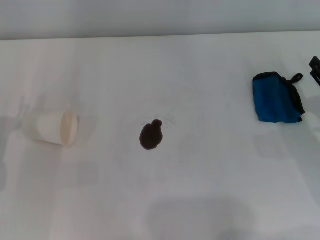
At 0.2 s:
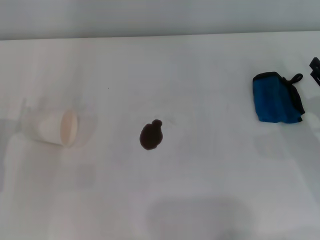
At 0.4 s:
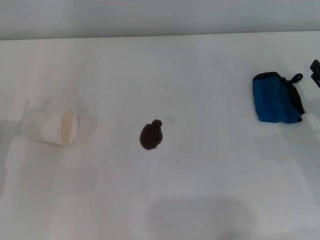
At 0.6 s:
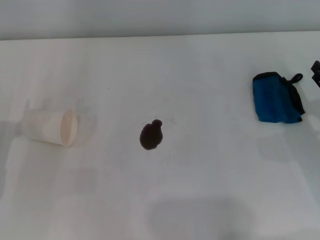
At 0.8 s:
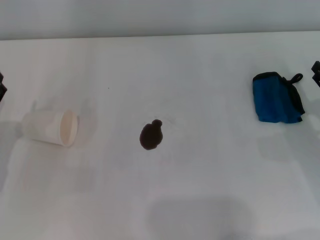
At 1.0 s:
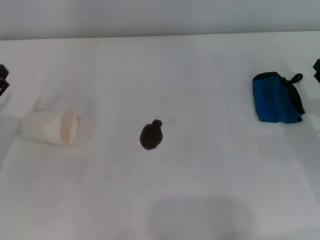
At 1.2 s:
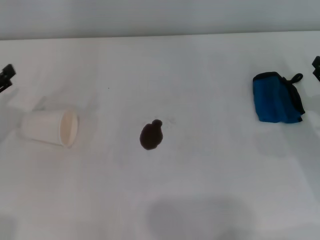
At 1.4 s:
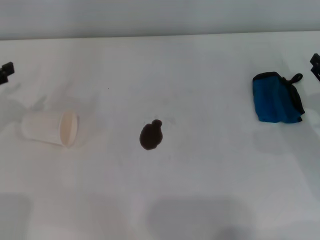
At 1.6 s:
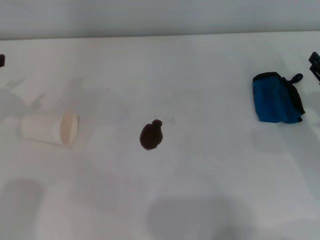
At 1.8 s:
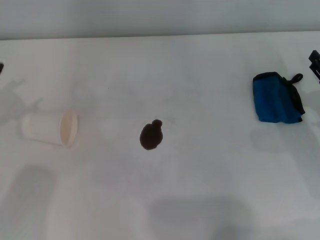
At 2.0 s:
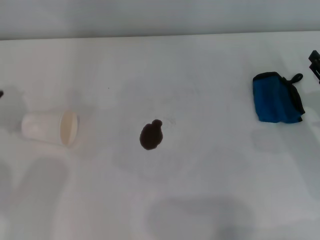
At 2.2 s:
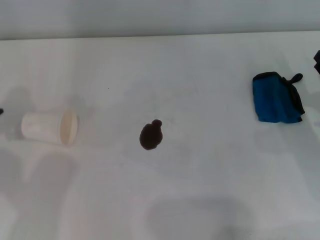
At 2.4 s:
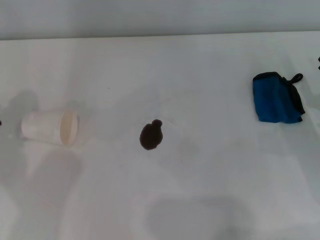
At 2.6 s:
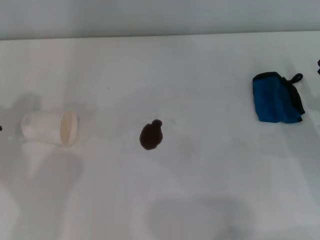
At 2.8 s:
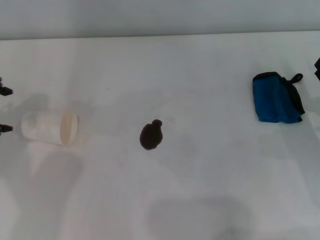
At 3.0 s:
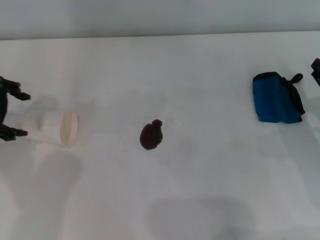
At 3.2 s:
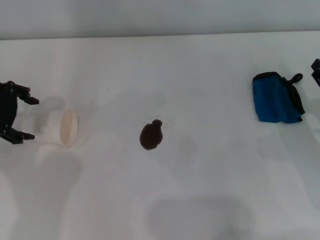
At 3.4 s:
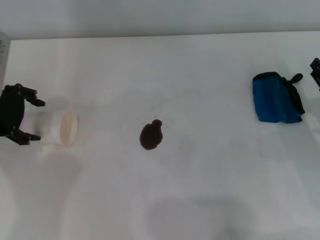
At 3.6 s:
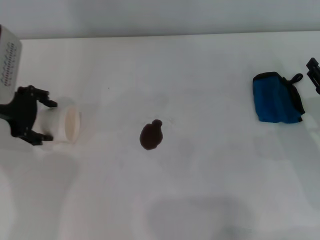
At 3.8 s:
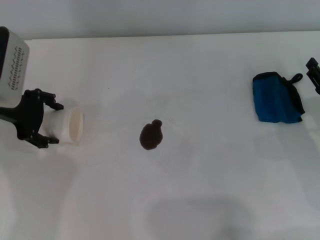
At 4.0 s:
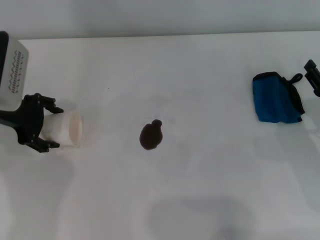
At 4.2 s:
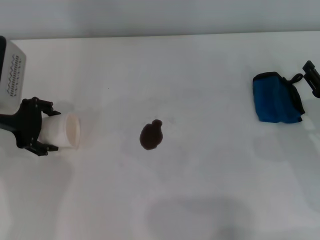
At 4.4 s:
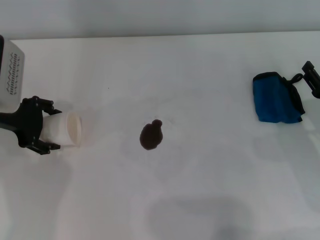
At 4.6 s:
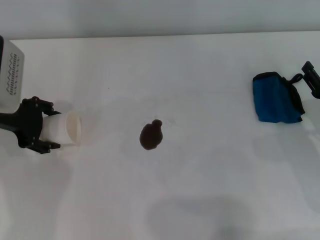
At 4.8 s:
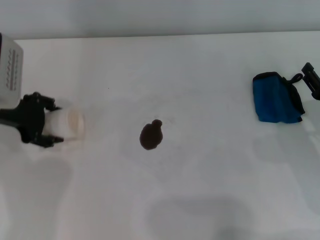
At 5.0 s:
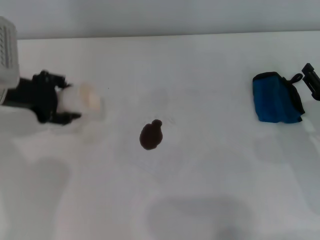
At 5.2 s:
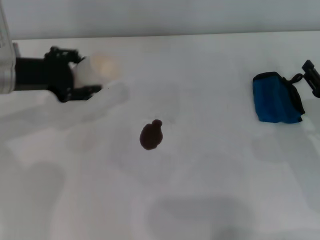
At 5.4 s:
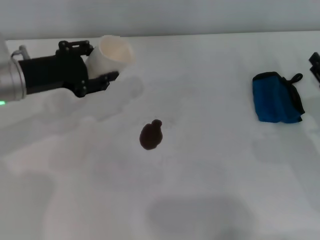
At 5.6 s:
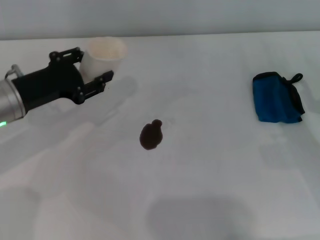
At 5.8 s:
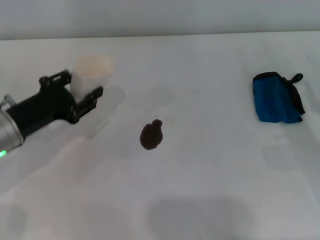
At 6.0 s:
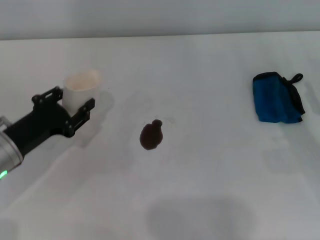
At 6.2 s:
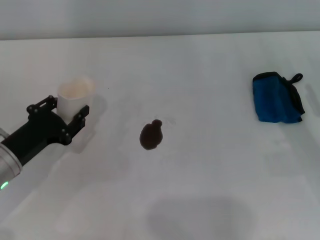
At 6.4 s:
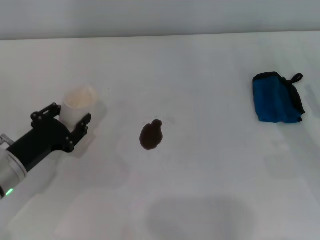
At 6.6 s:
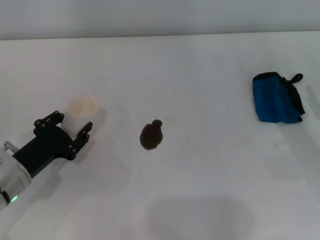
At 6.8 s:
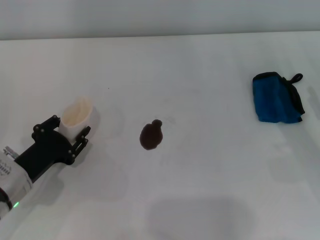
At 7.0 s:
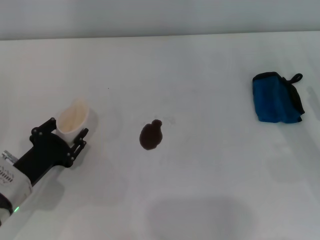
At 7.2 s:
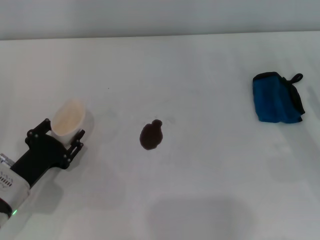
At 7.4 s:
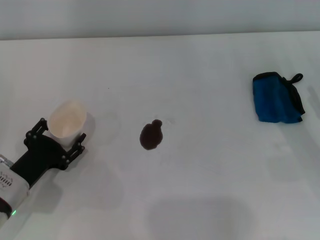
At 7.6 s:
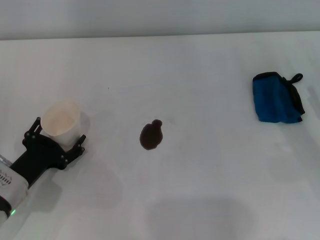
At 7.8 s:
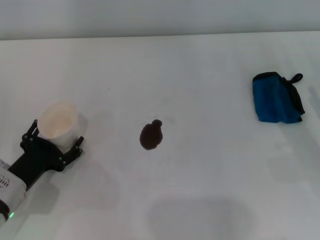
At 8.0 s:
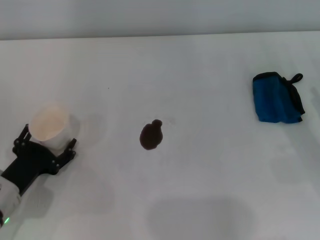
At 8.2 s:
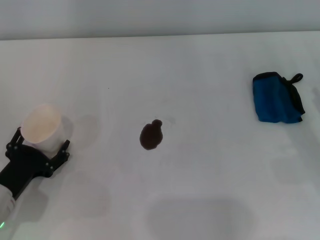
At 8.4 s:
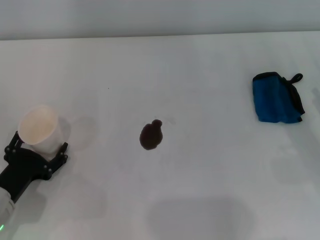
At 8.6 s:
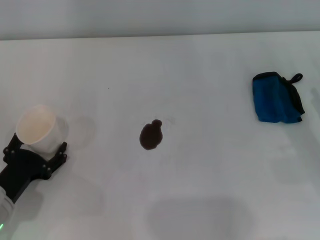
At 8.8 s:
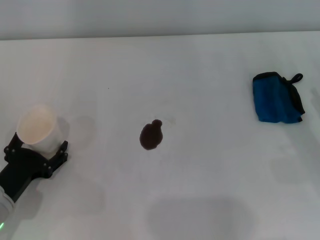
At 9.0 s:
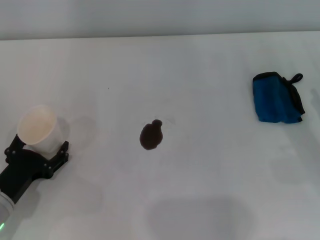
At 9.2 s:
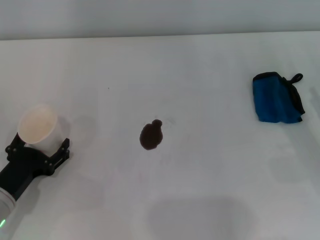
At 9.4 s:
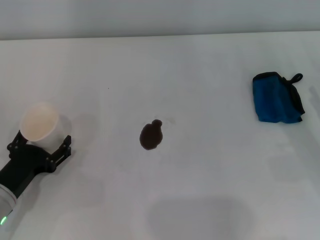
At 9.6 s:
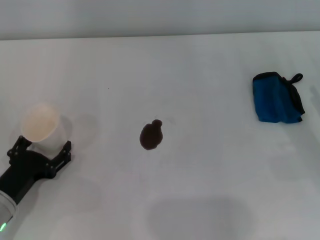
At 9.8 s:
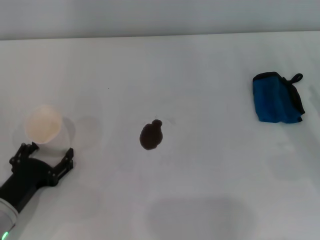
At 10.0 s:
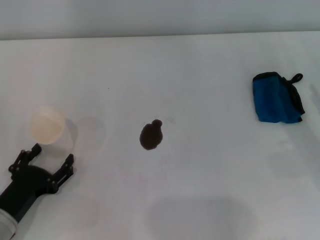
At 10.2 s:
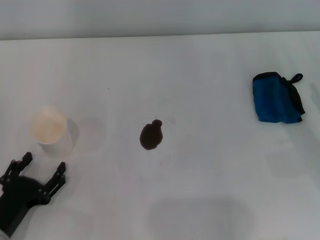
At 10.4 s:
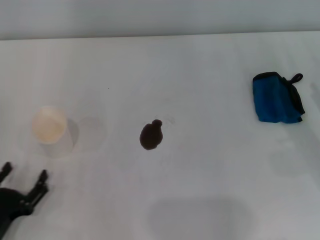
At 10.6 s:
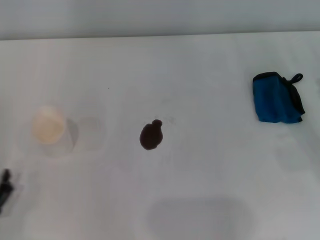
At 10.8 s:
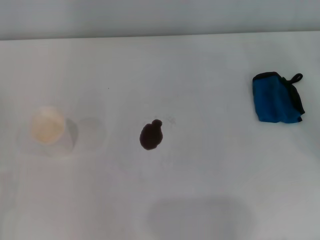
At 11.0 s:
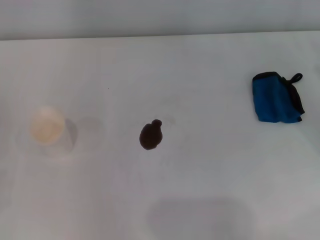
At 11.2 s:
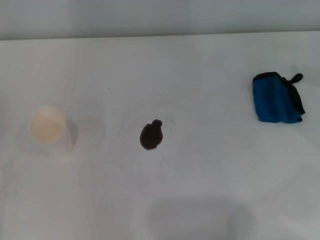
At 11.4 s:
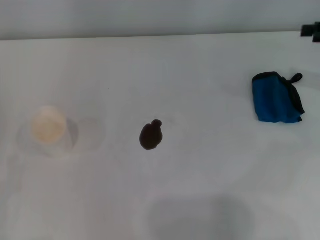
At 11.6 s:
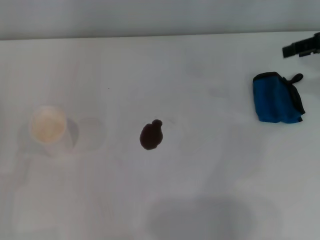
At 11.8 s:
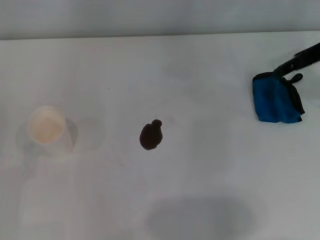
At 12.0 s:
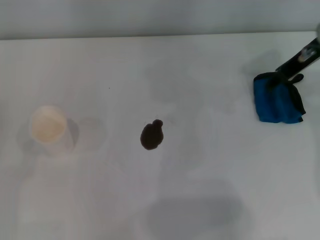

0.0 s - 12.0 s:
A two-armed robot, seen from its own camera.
Step, 0.0 s - 4.6 s: Grasp the paper cup with the left gripper.
Step, 4.8 s - 9.8 s: Stand the paper cup upright with the left gripper.
1.6 s - 3.0 s: The left gripper is displaced to the right by roughly 5 cm.
3.0 s - 4.4 s: The left gripper moves downward, roughly 5 cm.
4.4 s - 6.0 s: The left gripper goes some 10 cm backward and downward, and closes its fingers.
6.0 s - 7.6 s: The left gripper moves approximately 5 cm, and opens its fingers.
7.6 s - 9.0 s: The grippers make only small movements.
9.0 s - 10.4 s: The left gripper heads backward, covering roughly 5 cm.
10.4 s - 12.0 s: The right gripper travels forward, upward and to the left by some 25 cm. Meanwhile the left gripper shifts about 5 cm to the left.

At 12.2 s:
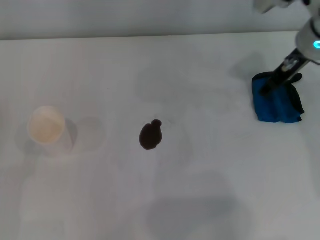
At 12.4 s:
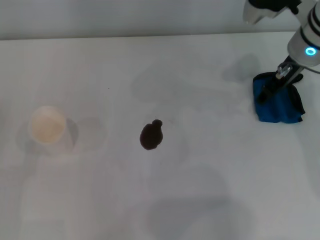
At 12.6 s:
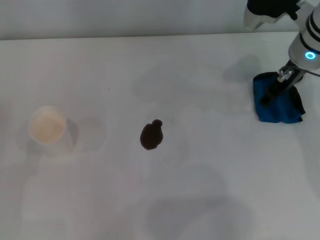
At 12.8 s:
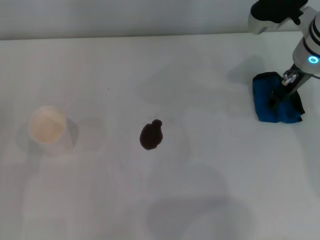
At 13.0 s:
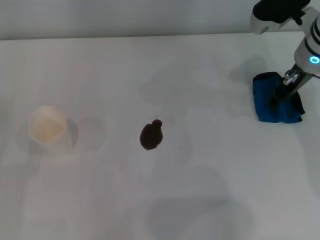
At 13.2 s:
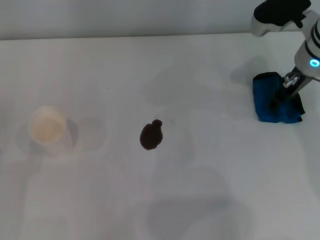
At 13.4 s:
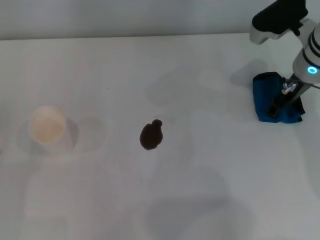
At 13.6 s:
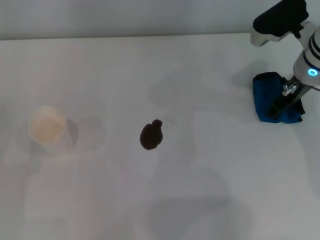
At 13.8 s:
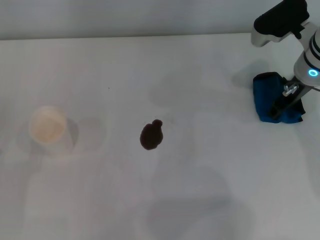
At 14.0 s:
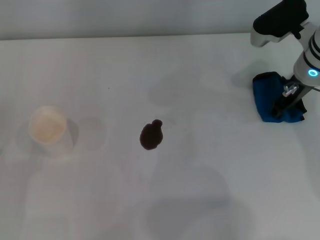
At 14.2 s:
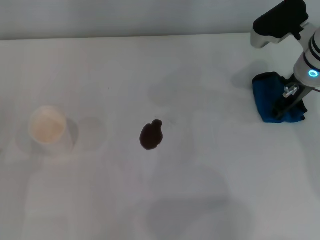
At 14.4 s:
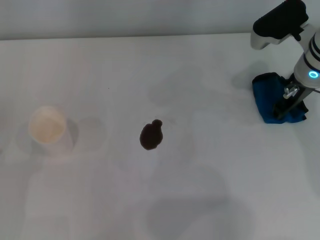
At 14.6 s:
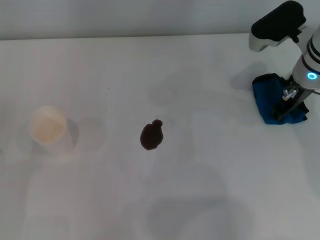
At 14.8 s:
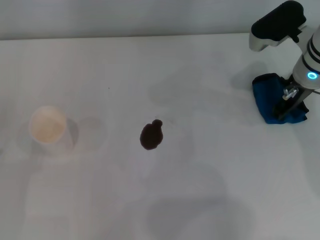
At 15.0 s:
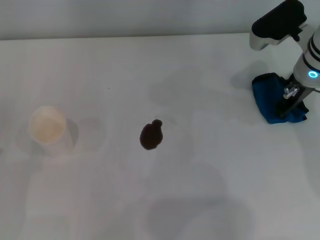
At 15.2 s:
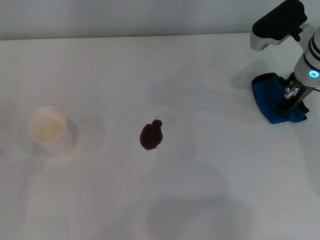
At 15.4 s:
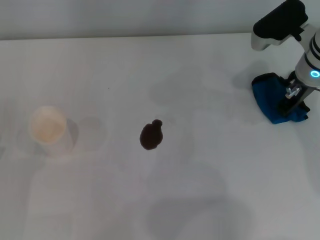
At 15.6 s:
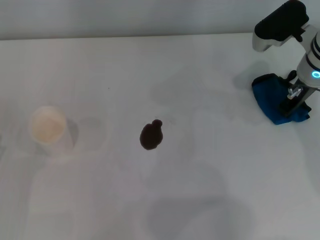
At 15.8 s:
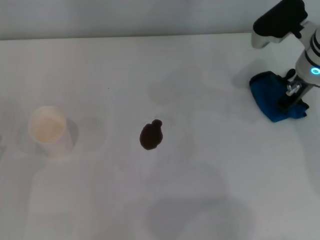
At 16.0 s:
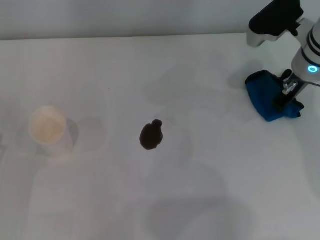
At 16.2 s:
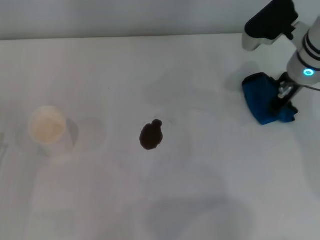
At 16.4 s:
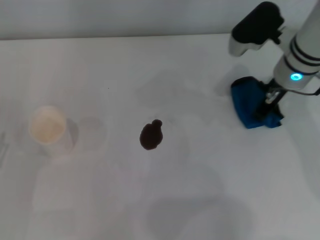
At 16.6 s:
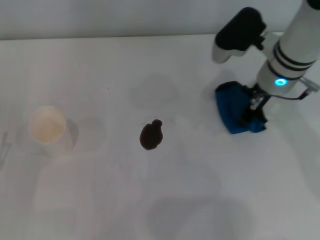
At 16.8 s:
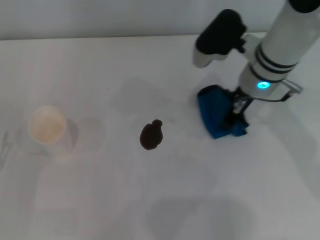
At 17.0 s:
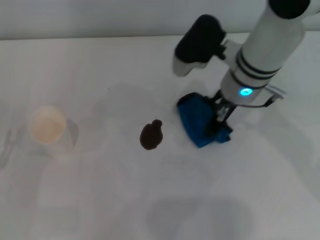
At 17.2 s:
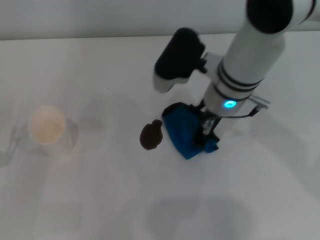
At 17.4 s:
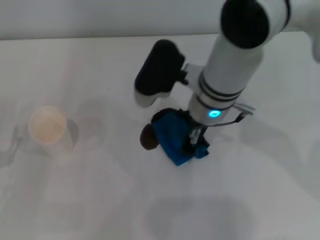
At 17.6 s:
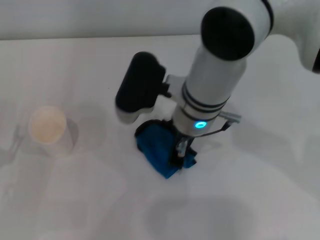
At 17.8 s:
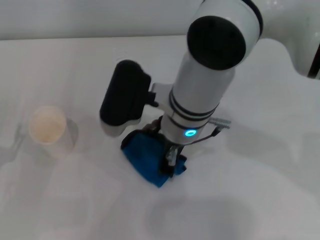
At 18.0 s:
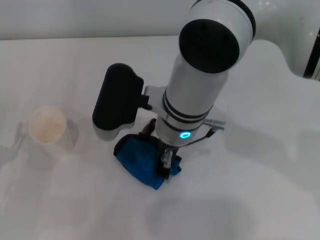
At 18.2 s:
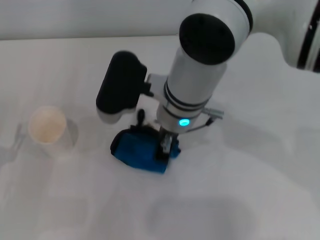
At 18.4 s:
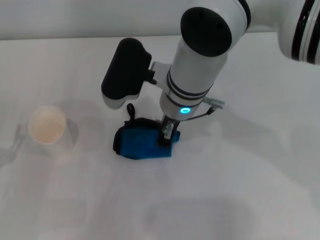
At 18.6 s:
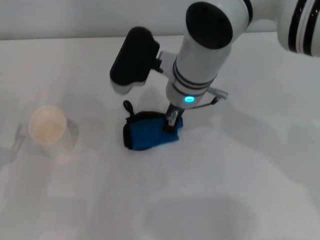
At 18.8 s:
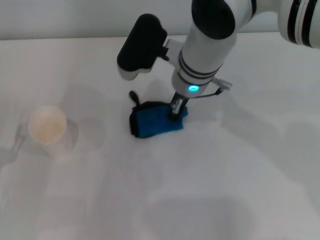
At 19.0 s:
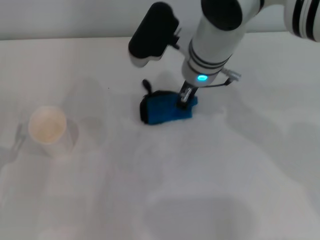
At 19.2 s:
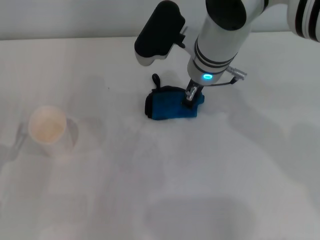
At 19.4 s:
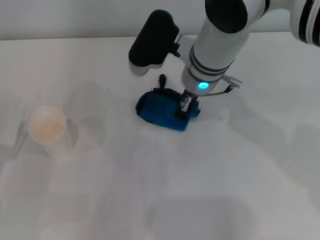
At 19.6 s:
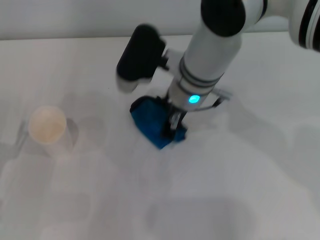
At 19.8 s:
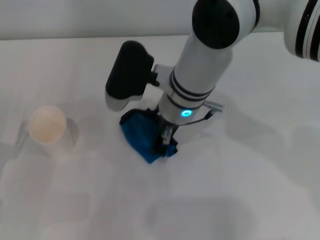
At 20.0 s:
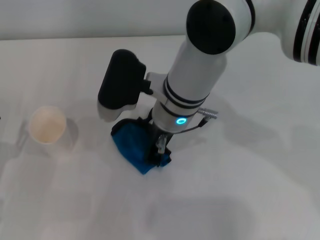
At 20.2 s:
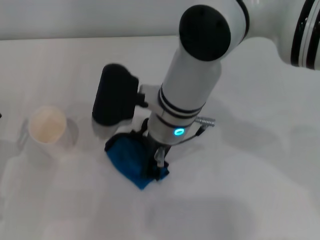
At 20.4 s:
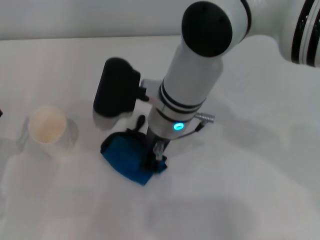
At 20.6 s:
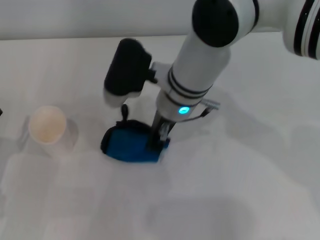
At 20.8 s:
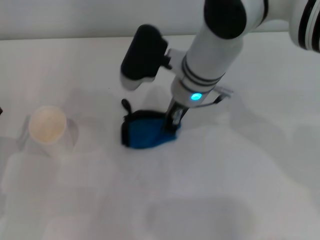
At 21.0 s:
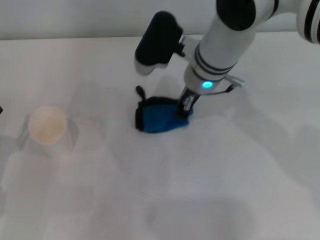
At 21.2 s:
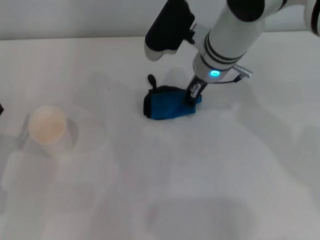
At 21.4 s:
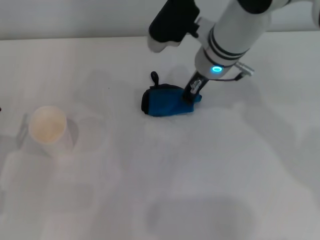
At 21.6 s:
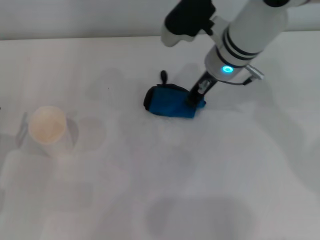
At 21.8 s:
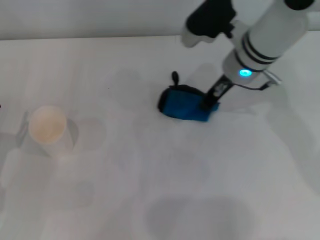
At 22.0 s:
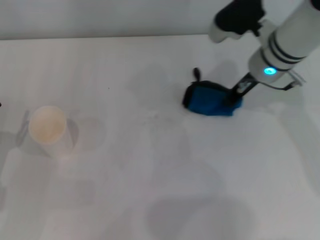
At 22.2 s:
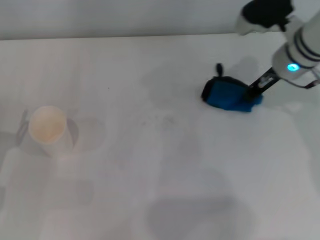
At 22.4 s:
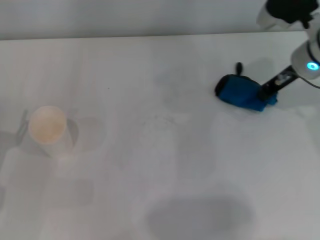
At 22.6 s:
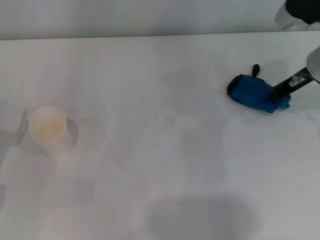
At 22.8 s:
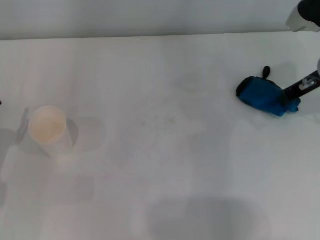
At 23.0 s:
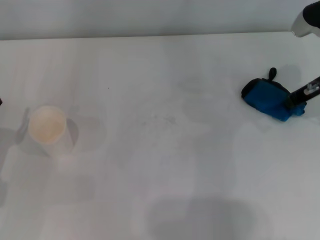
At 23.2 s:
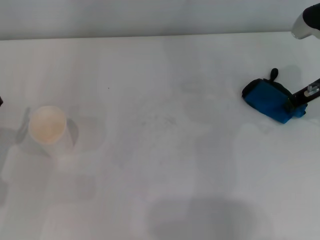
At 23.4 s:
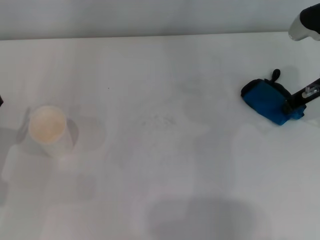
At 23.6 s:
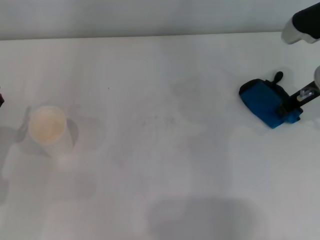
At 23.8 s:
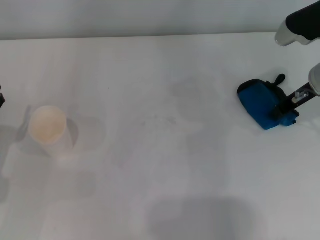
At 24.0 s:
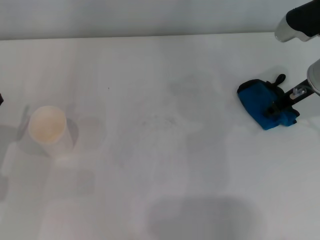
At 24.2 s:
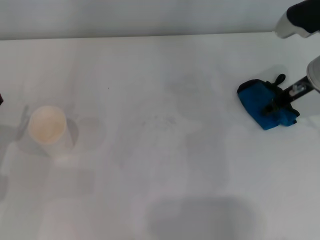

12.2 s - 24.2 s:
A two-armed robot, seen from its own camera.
Step, 12.2 s - 15.6 s: Grasp the rag with the right gripper.
Step, 15.8 s - 23.2 s: Wipe the stains off the table with the right gripper.
Step, 23.4 s - 24.0 s: Place the rag on the table with the right gripper.
12.2 s - 13.8 s: The right gripper travels downward by roughly 5 cm.
13.8 s - 15.2 s: The right gripper closes its fingers.
15.2 s - 16.6 s: The right gripper is displaced to the left by some 5 cm.
16.6 s - 18.2 s: The right gripper shifts roughly 15 cm to the left.
19.8 s - 21.2 s: The right gripper travels to the right and forward by some 10 cm.
21.2 s - 22.6 s: The right gripper heads to the right, covering about 15 cm.
22.6 s - 24.2 s: The right gripper opens up.
